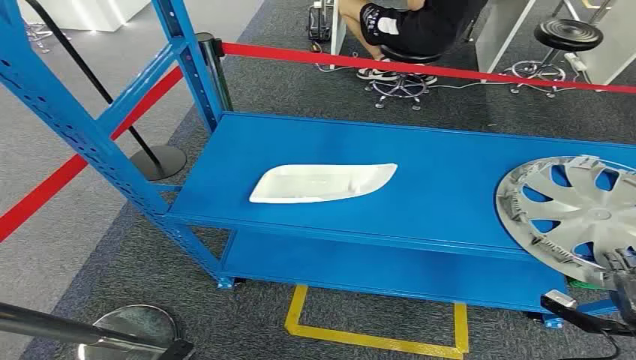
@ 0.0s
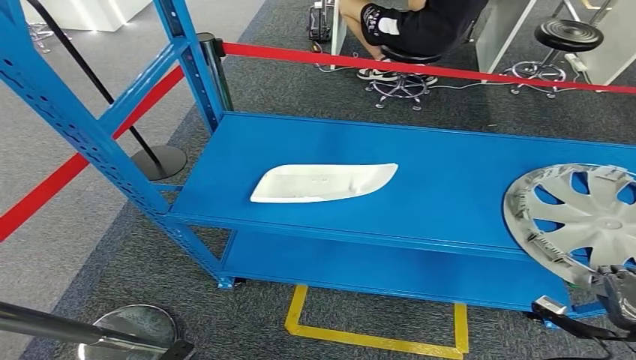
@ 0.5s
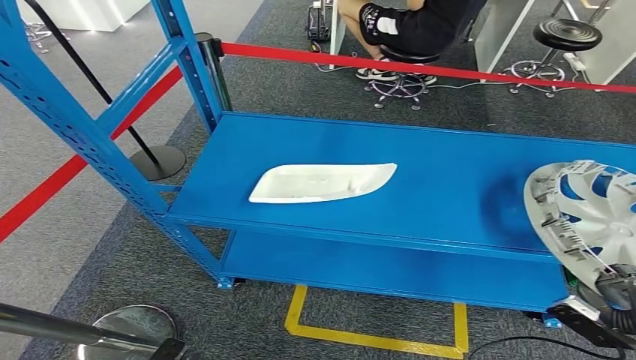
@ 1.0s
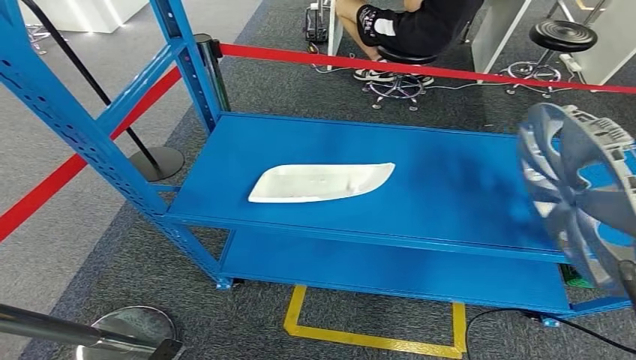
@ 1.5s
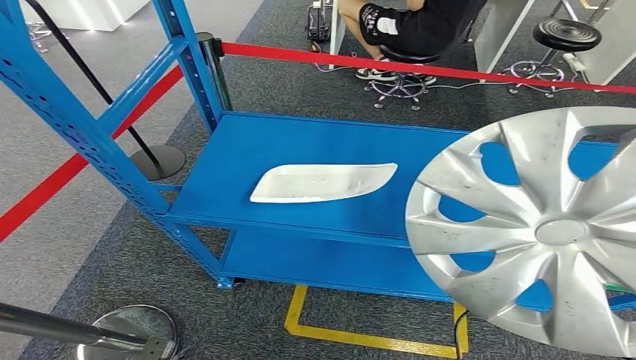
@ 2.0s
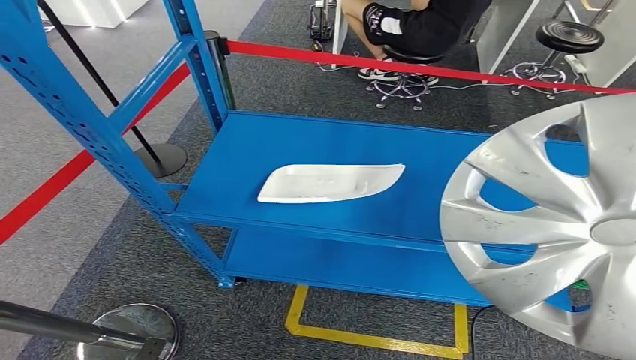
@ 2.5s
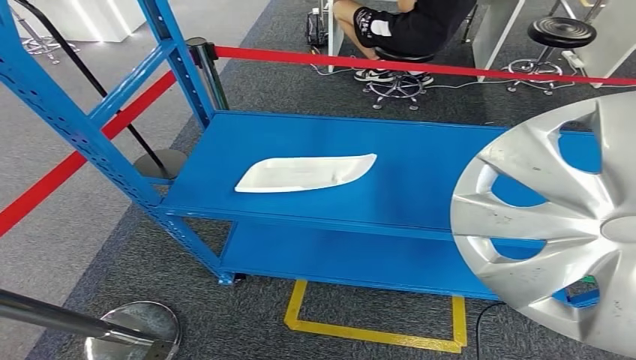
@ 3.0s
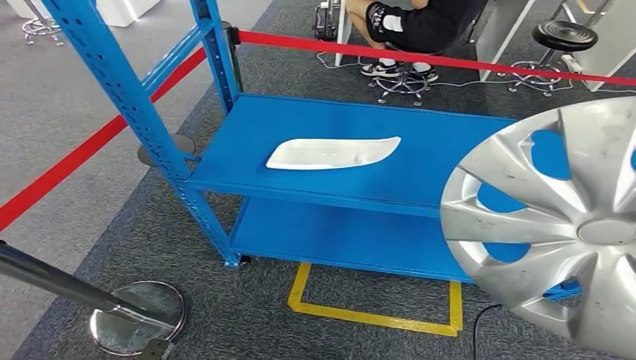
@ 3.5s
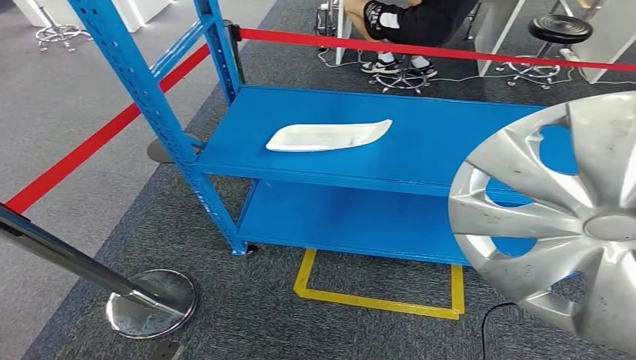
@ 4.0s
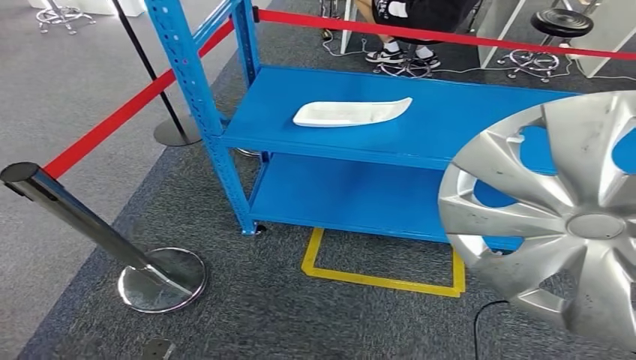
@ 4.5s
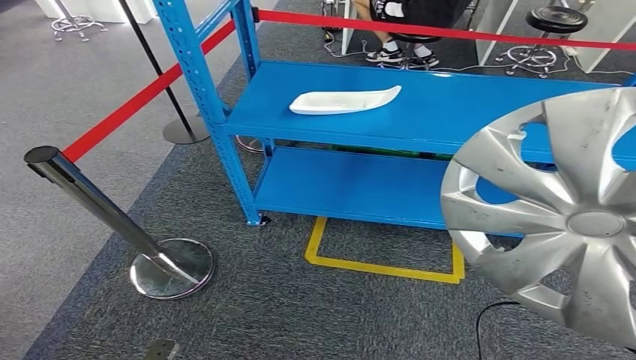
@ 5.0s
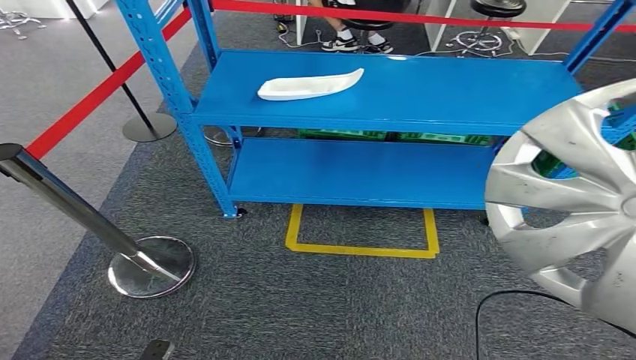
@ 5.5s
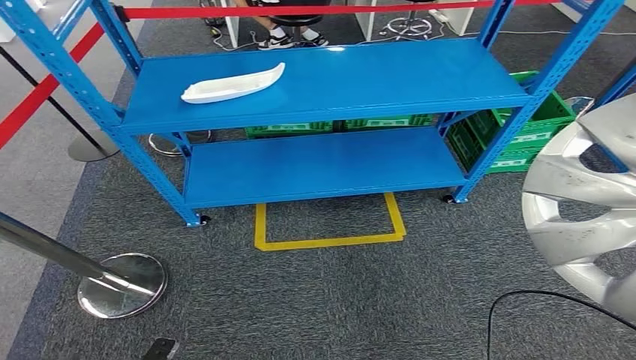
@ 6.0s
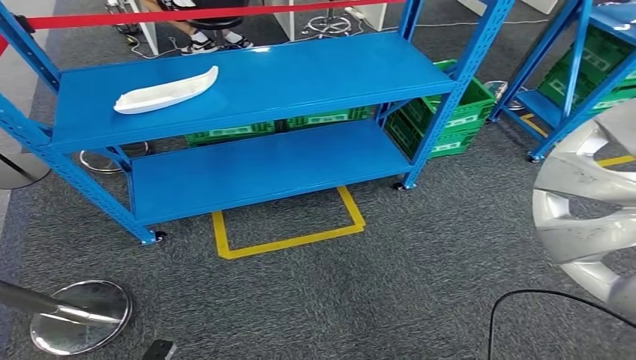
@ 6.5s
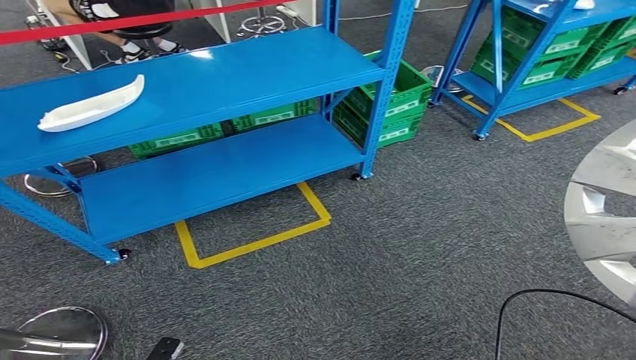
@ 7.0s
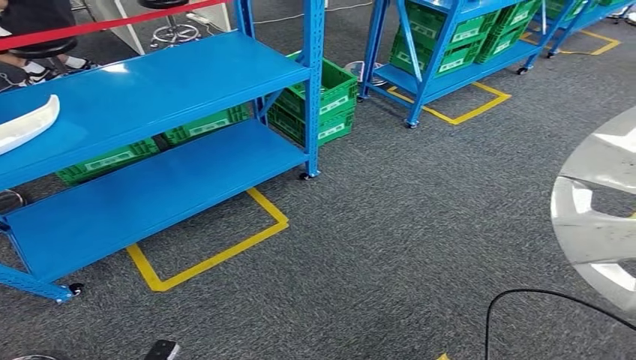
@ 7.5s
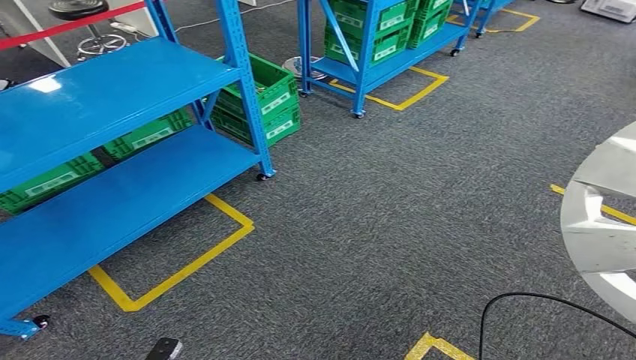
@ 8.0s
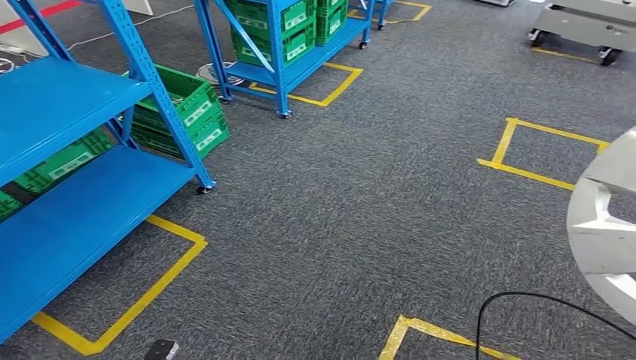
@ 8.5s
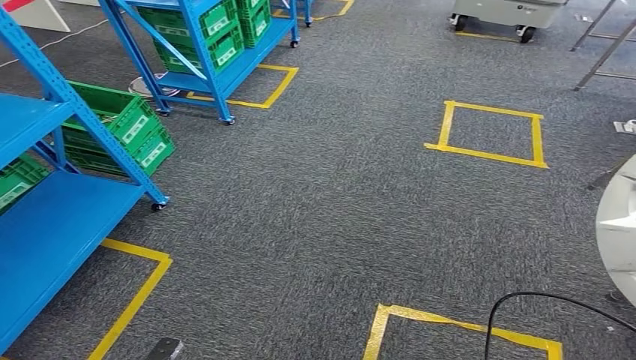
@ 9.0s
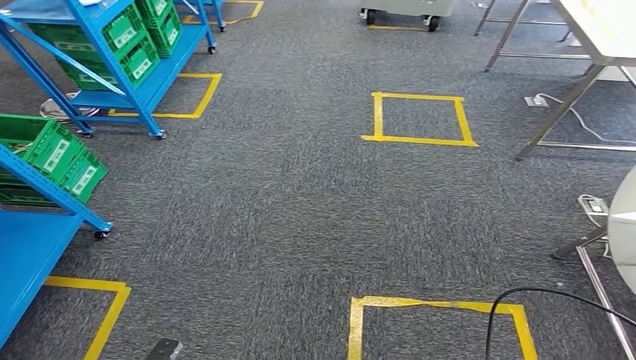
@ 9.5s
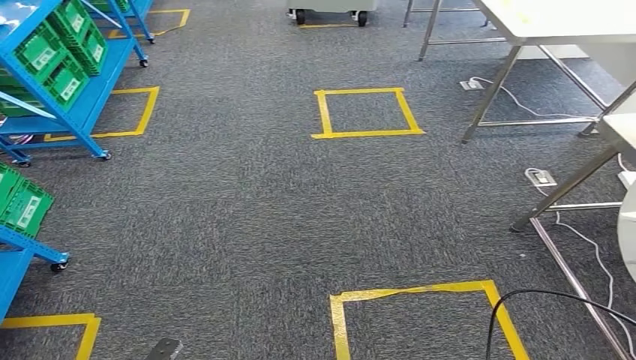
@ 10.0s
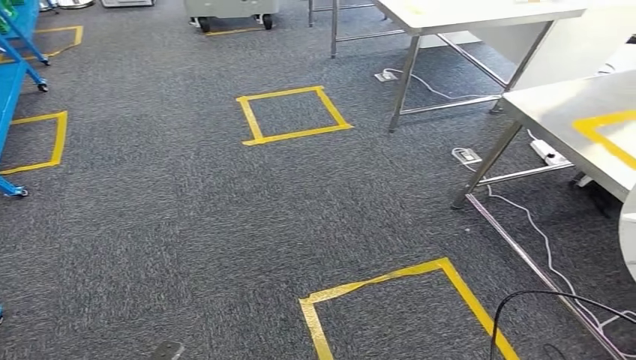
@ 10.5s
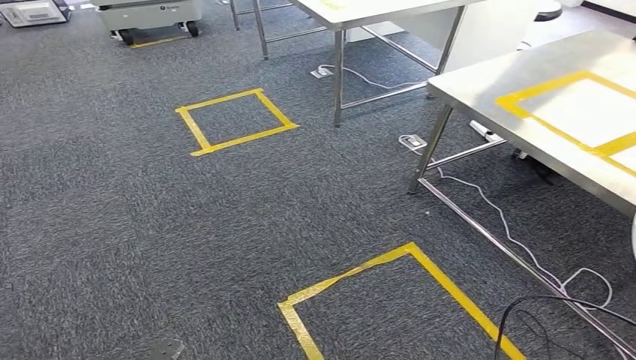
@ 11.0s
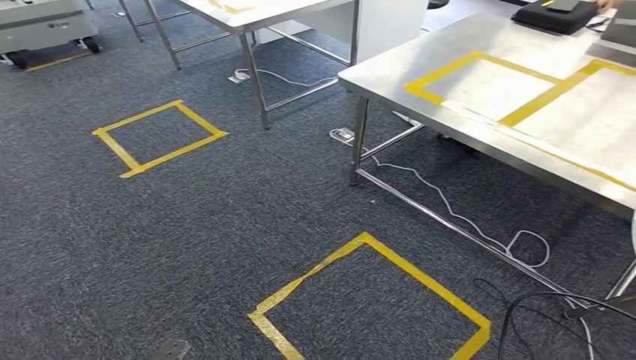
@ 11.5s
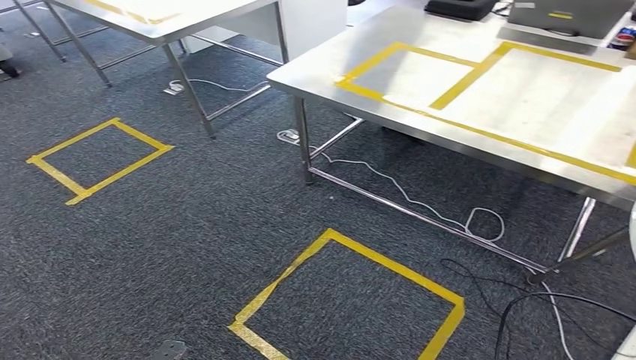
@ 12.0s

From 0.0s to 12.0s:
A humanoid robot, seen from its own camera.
Step, from 0.0s to 2.5s: Pick up the small component from the shelf.

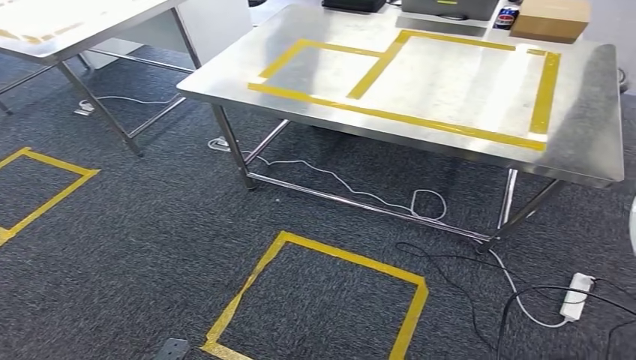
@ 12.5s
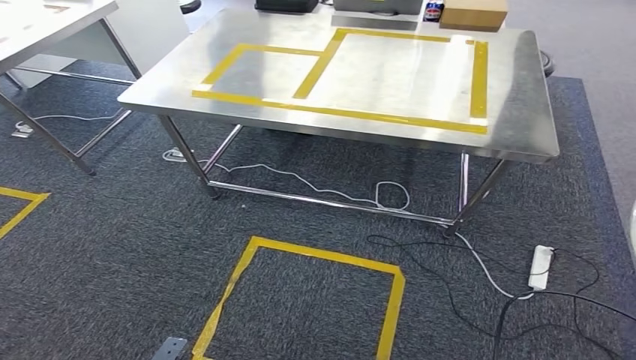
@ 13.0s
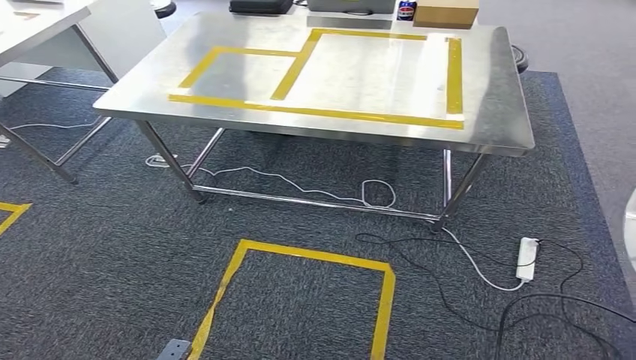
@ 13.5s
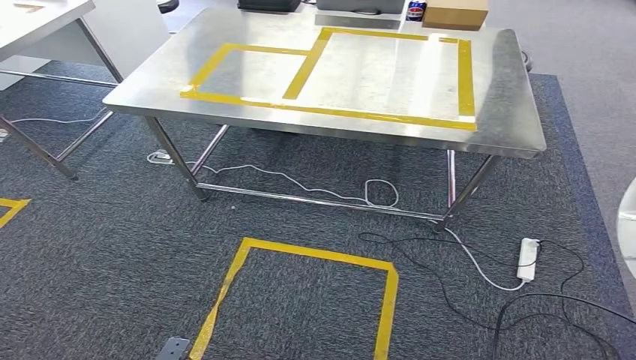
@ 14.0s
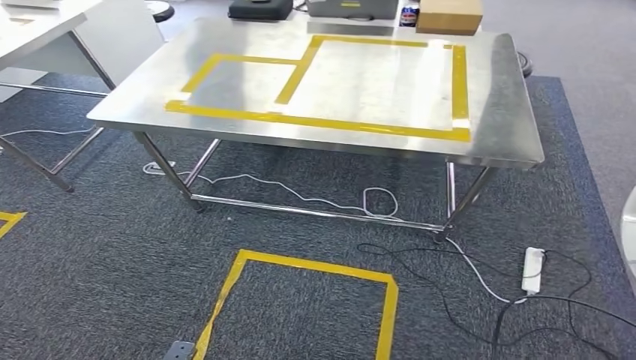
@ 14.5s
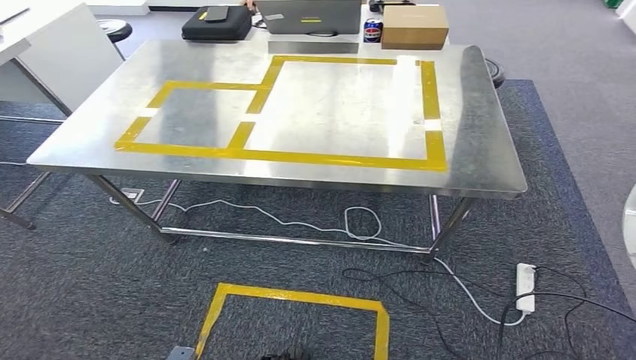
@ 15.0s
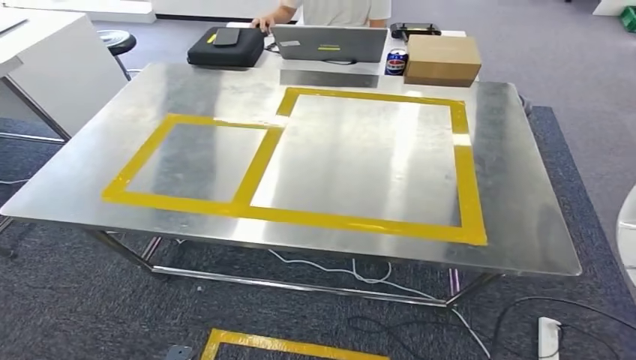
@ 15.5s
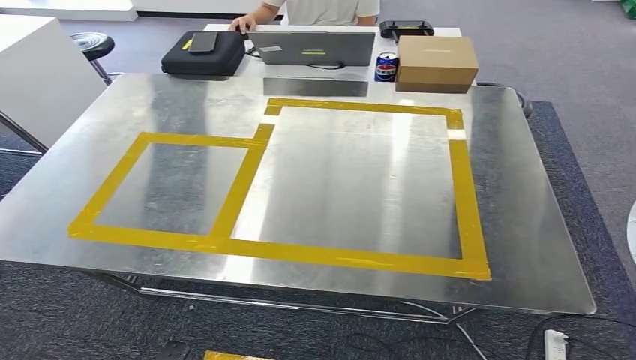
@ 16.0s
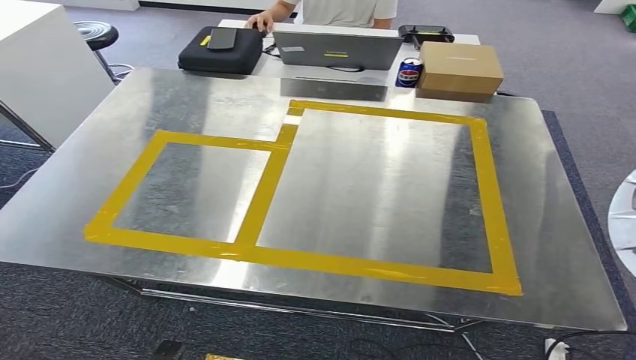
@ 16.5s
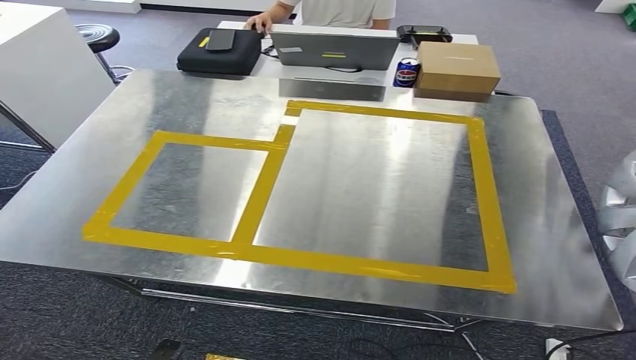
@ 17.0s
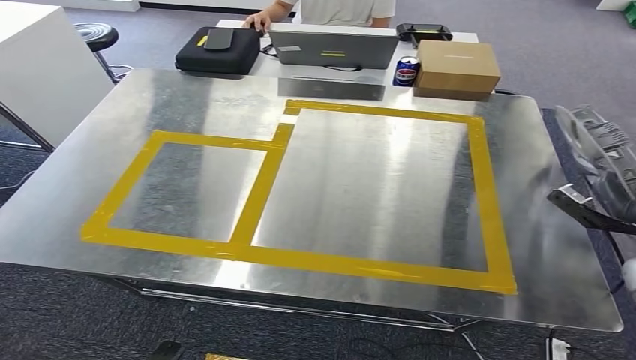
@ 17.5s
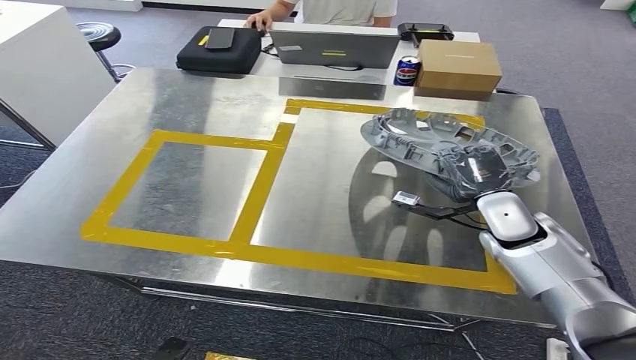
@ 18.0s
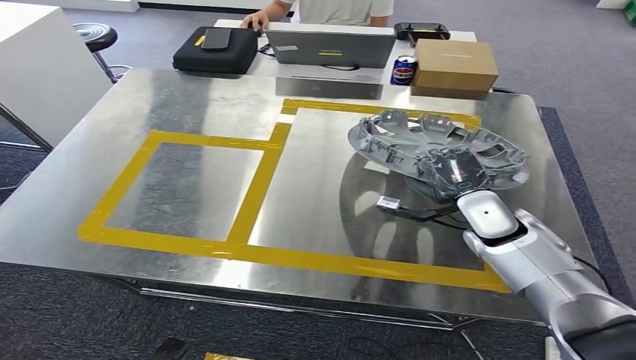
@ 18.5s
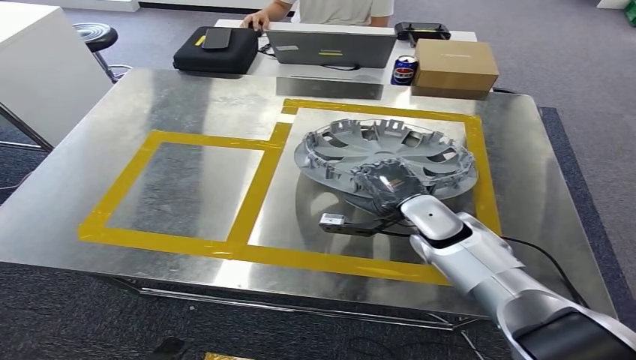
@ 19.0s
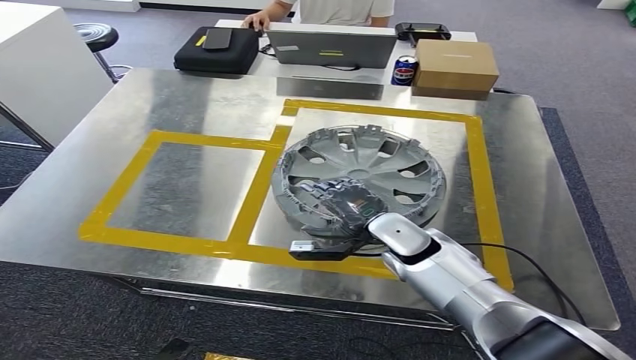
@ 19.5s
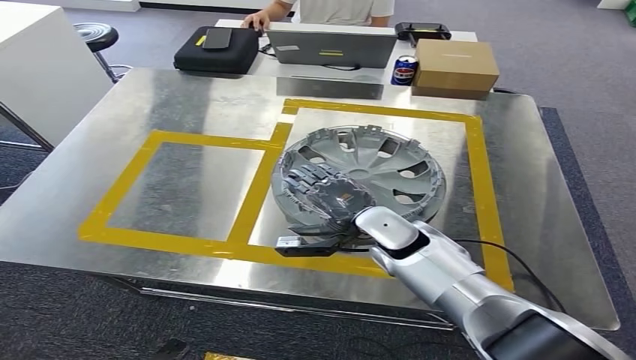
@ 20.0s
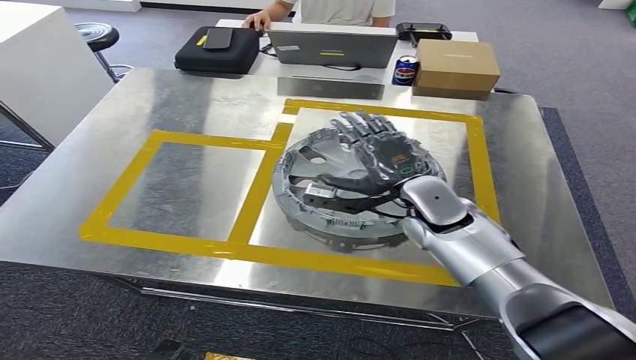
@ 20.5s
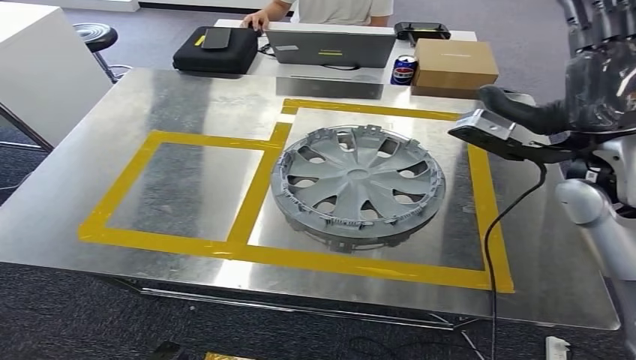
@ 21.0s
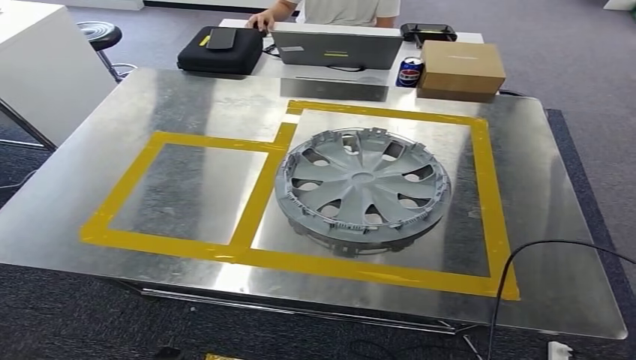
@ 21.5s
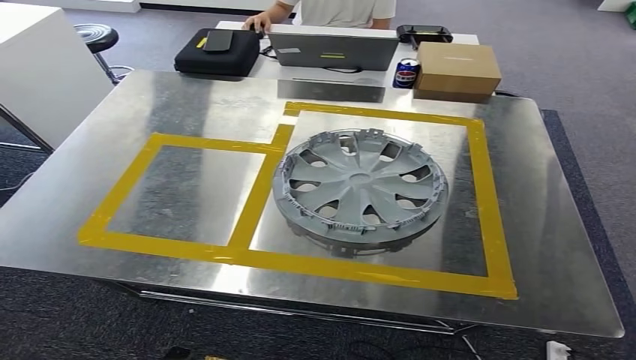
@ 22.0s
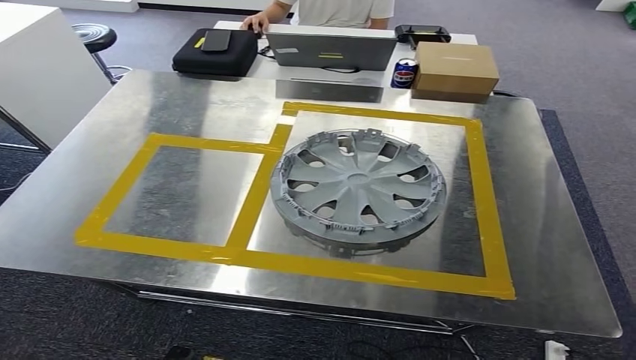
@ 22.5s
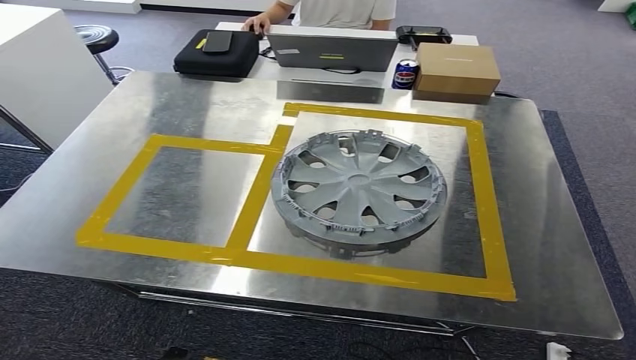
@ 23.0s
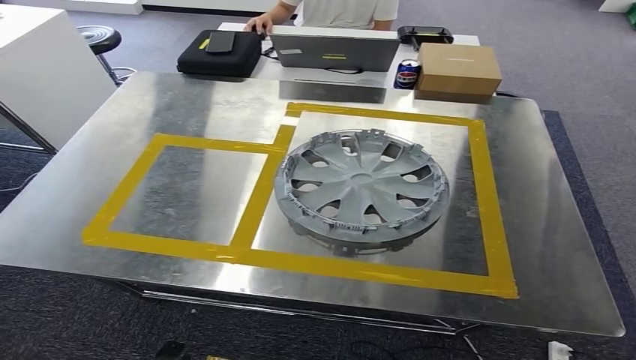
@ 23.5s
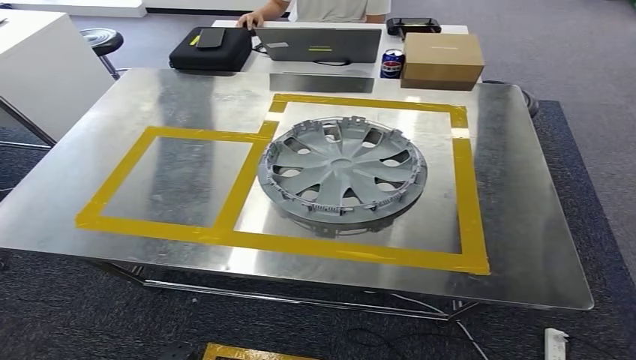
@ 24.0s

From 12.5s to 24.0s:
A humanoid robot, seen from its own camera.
Step, from 14.0s to 21.5s: Insert the small component into the corresponding slot on the workbench.
From 18.5s to 20.0s: The right hand moves to the left, some 15 cm.
